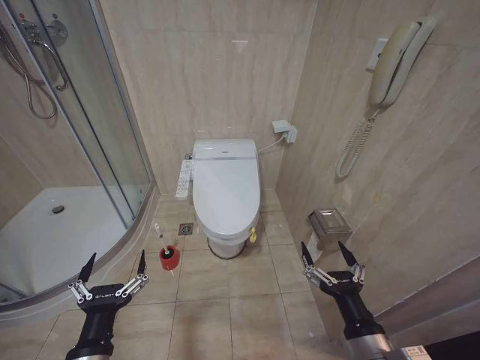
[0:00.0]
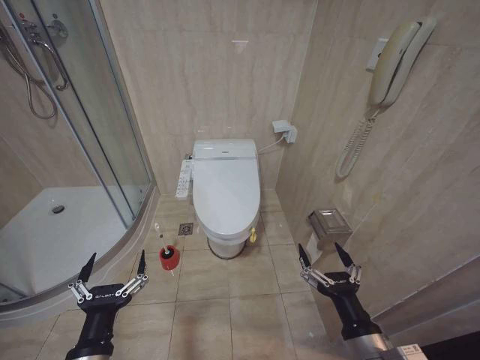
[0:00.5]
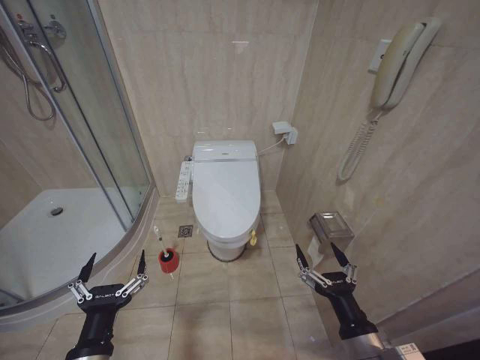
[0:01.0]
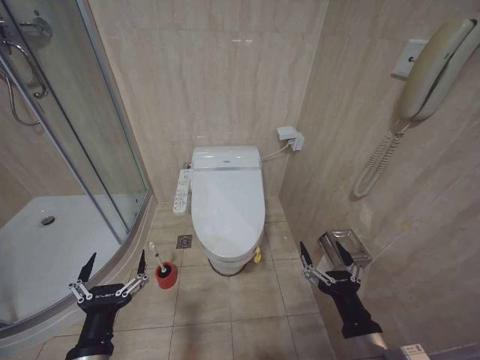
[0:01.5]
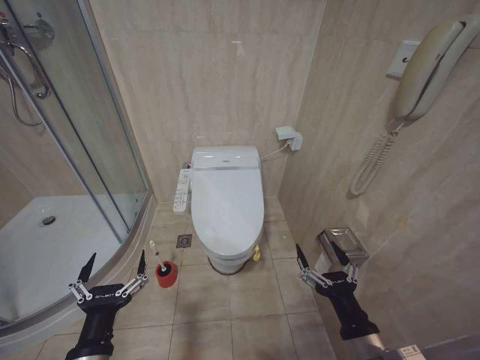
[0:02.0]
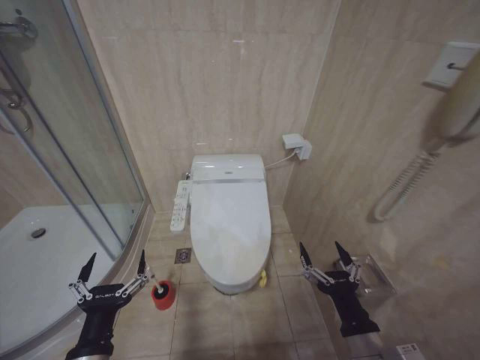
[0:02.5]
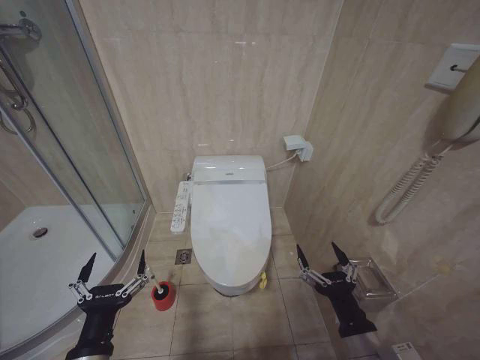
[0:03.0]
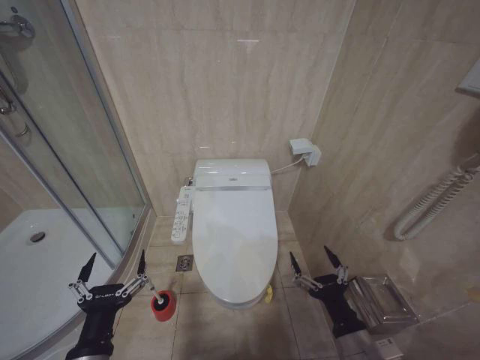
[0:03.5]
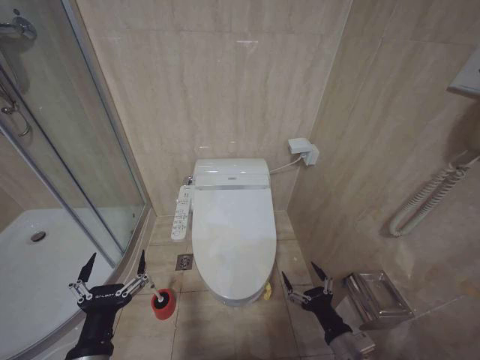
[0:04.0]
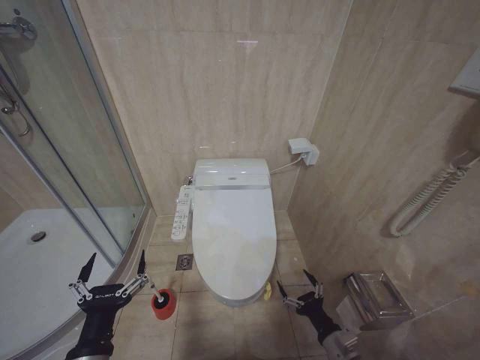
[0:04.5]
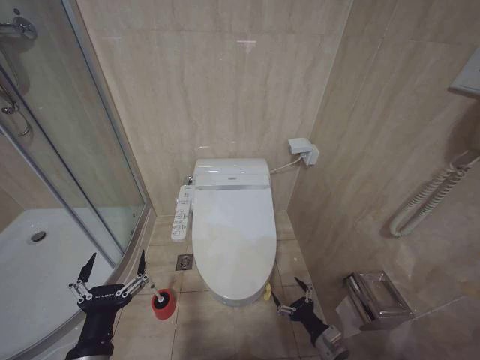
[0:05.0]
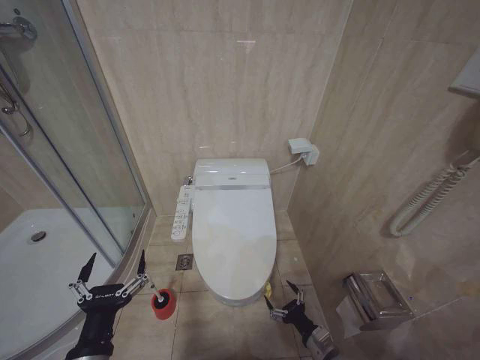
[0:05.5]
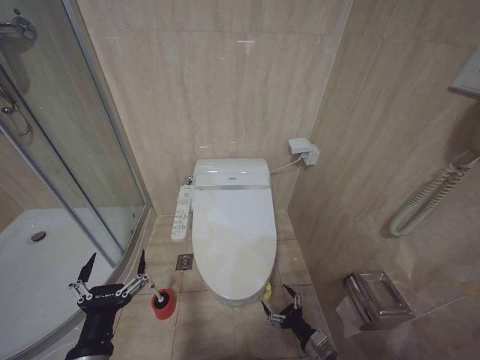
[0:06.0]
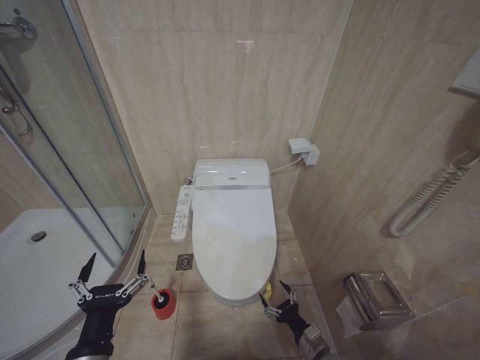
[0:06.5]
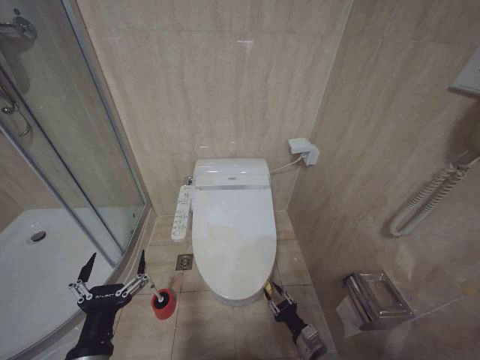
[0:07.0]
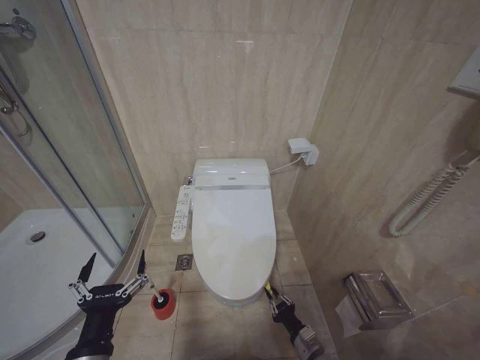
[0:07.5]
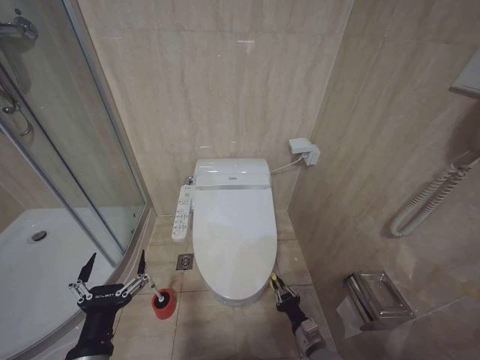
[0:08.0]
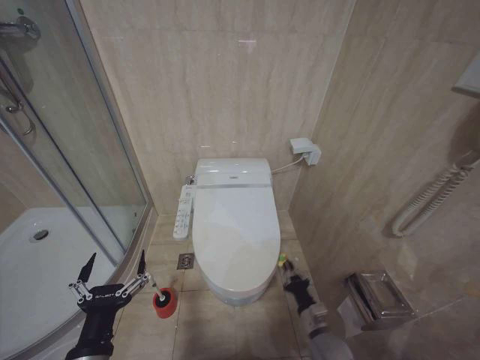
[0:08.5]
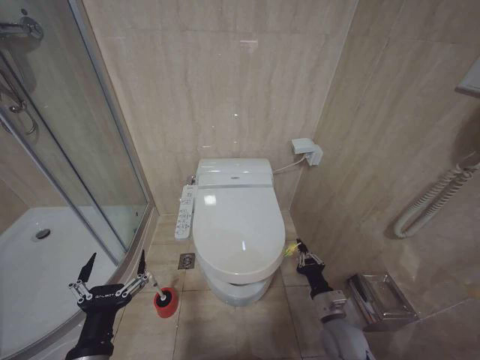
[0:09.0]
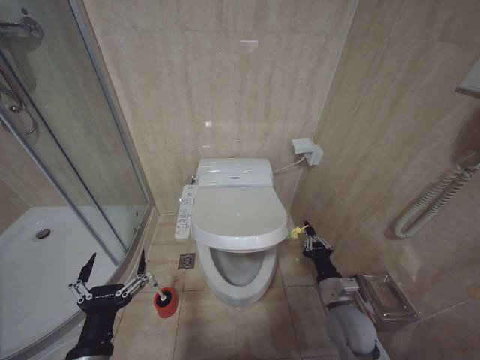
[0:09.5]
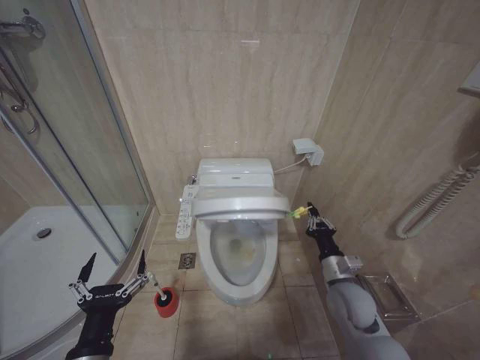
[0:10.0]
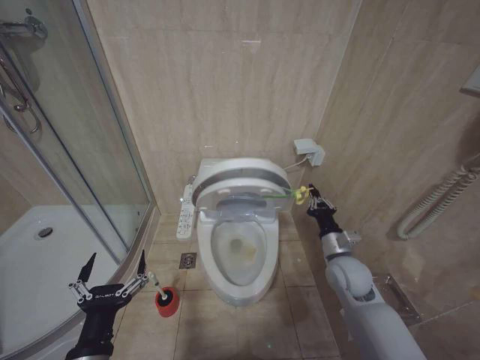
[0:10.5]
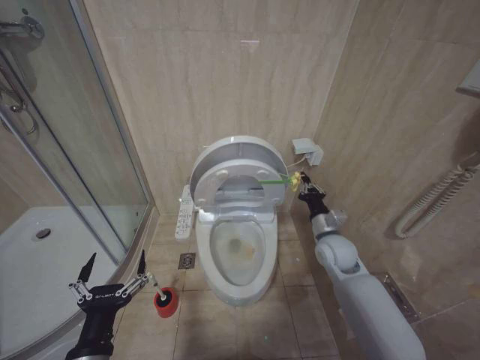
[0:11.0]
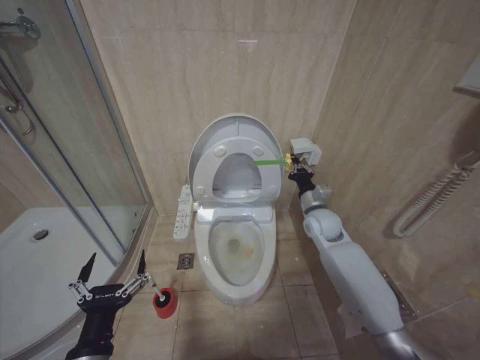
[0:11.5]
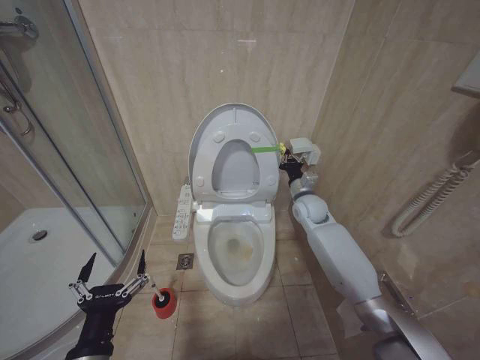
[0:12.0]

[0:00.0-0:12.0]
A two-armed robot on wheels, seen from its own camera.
Task of the whole recording: Open the toilet lid, clean the toilet bowl with a toilet brush, close the toilet lid, and flush.
0:02.0 to 0:04.0: The right gripper heads downward, covering some 10 cm.
0:04.0 to 0:06.0: The right gripper is displaced downward by about 15 cm.
0:06.0 to 0:08.0: The right gripper closes up.
0:08.0 to 0:10.0: The right gripper moves upward and forward, some 20 cm.
0:10.0 to 0:12.0: The right gripper shifts approximately 25 cm forward and upward.

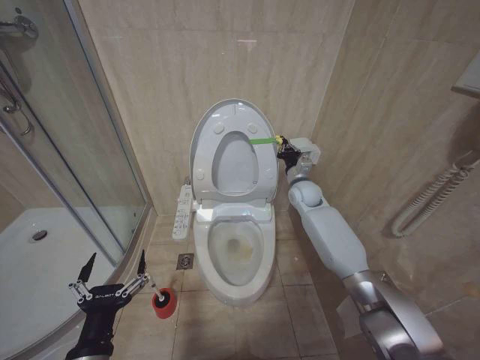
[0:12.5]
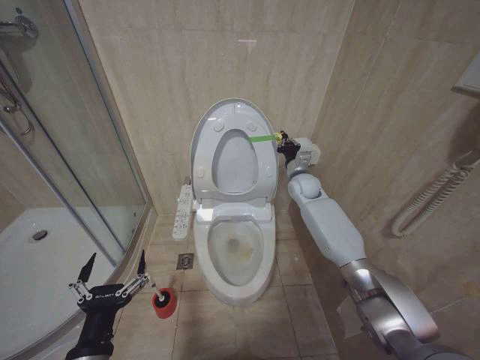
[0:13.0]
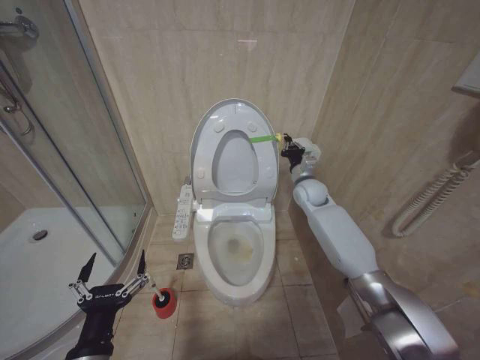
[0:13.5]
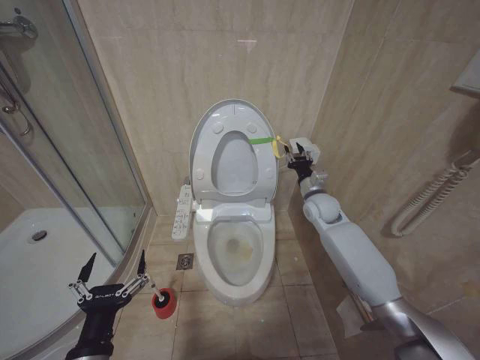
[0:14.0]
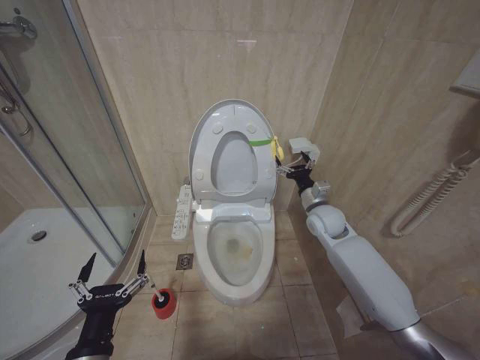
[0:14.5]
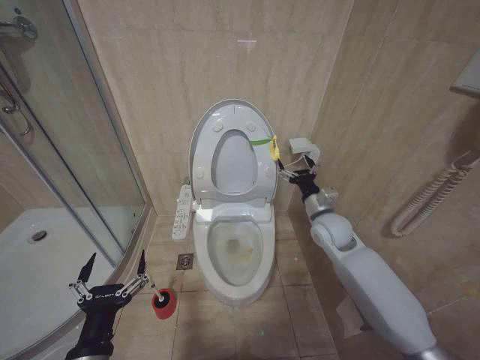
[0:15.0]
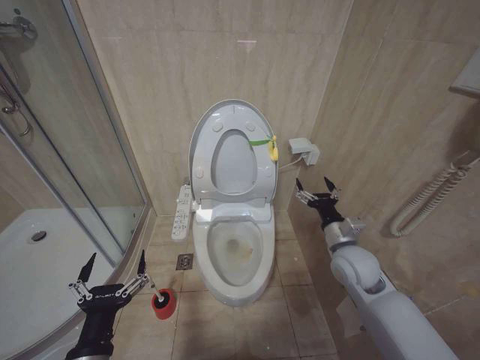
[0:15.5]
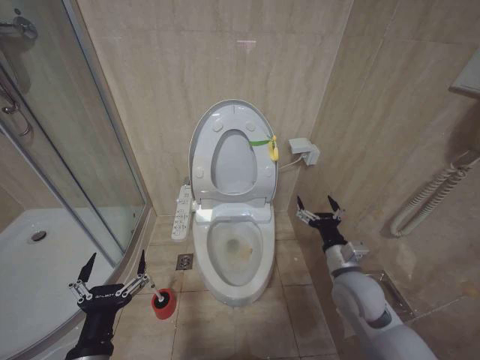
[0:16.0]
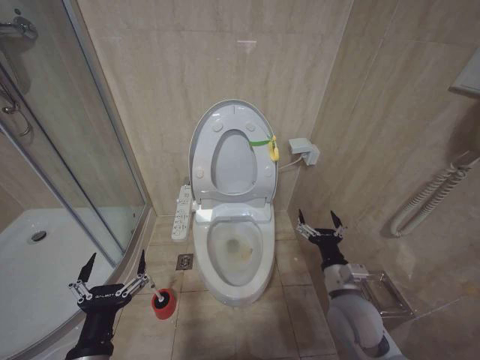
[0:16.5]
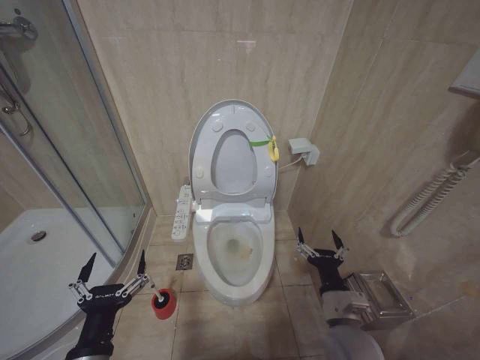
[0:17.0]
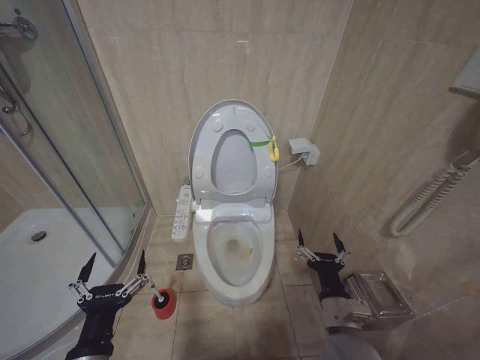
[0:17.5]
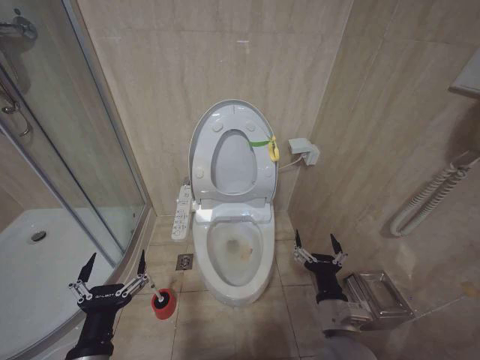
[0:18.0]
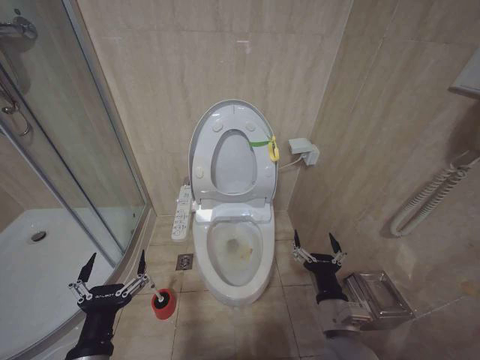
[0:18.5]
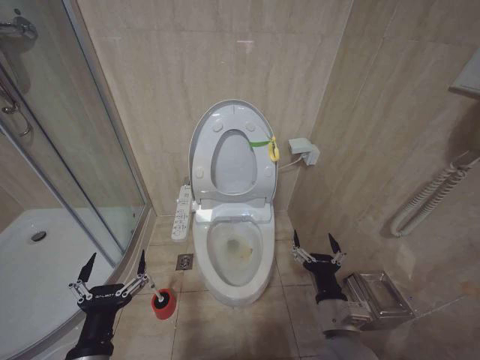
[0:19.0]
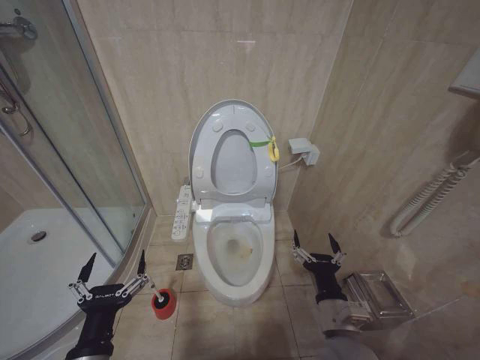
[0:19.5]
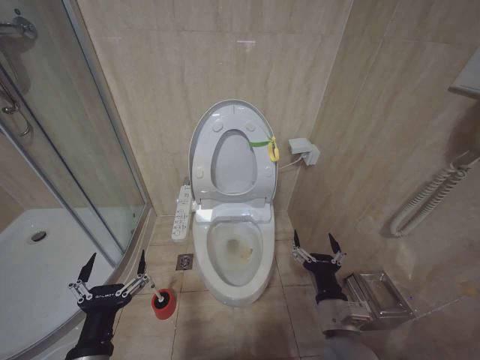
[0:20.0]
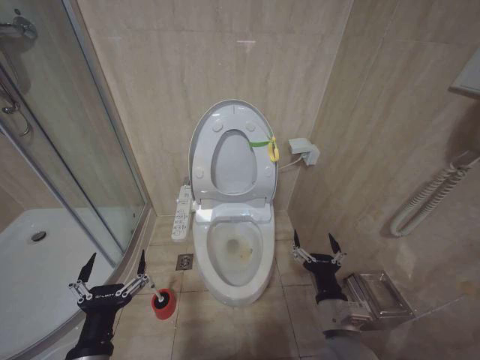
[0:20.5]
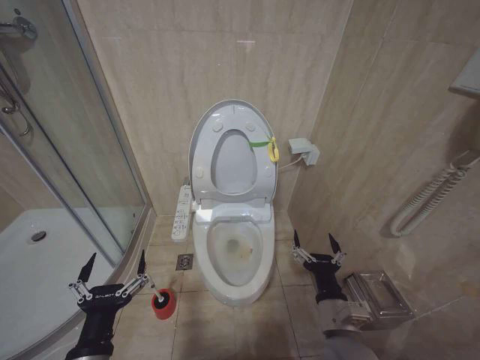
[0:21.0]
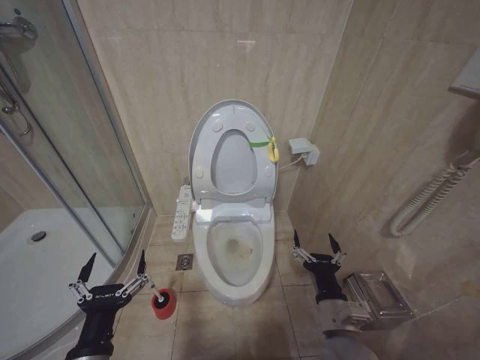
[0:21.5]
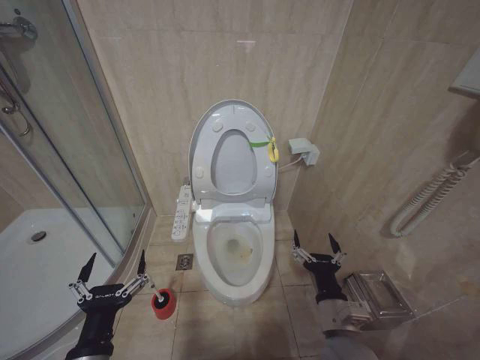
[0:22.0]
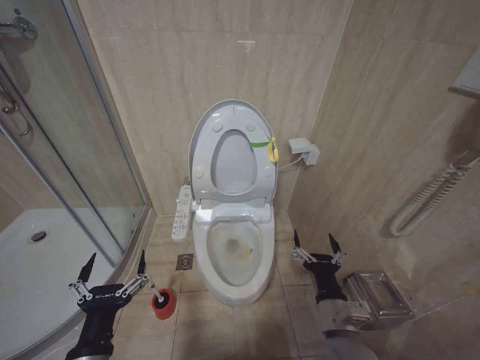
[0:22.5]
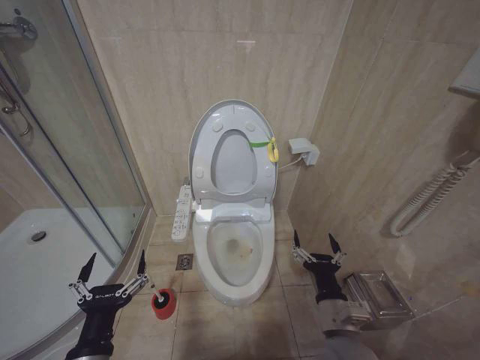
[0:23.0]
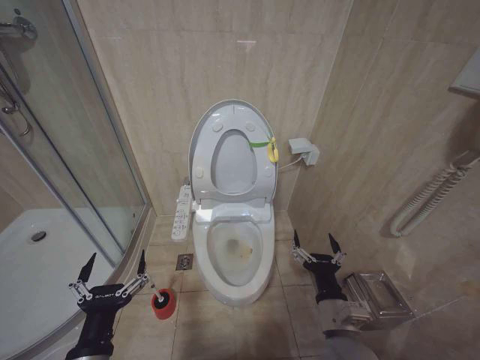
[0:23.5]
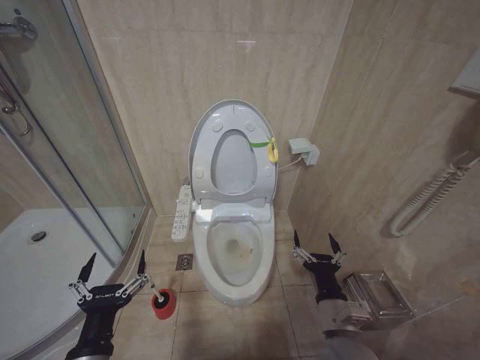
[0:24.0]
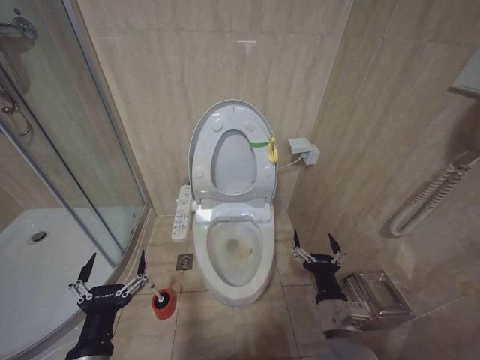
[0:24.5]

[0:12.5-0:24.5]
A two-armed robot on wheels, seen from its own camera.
Task of the whole recording: Open the toilet lid, clean the toilet bowl with a toilet brush, close the toilet lid, and flush.
0:12.5 to 0:14.5: The right gripper travels backward by roughly 10 cm, and opens its fingers.
0:14.5 to 0:16.5: The right gripper goes some 20 cm backward.
0:16.5 to 0:18.5: The right gripper travels backward by roughly 5 cm.
0:18.5 to 0:24.5: The two grippers keep their place.

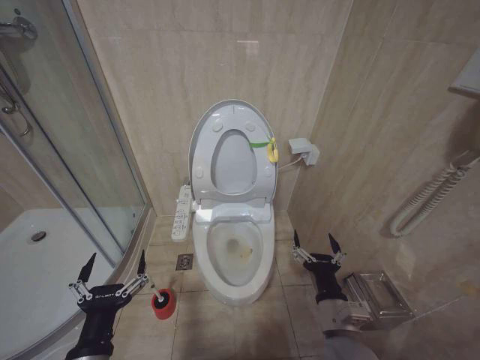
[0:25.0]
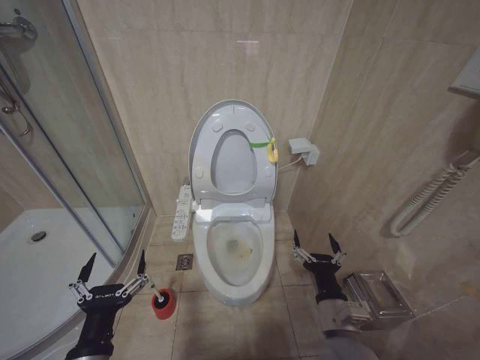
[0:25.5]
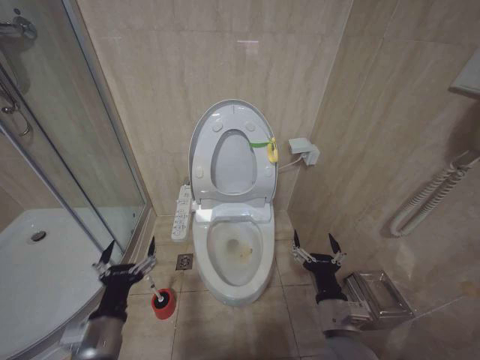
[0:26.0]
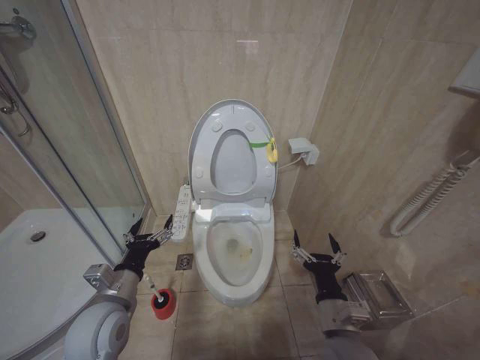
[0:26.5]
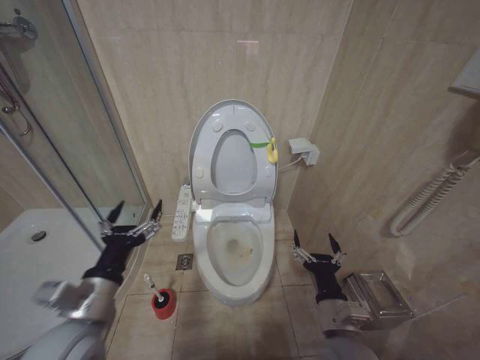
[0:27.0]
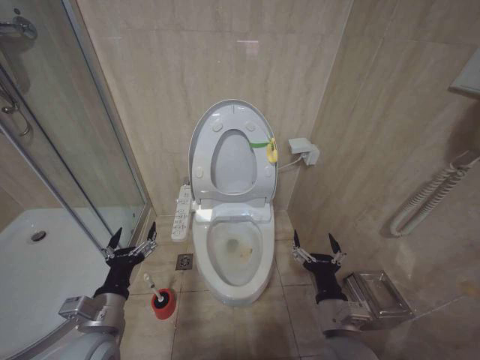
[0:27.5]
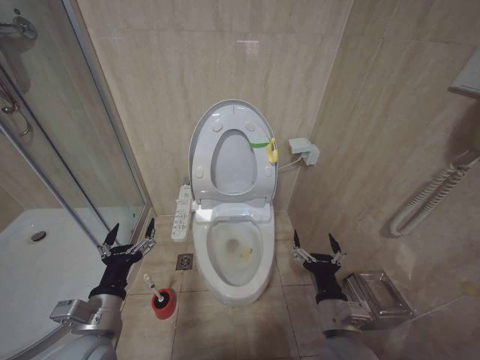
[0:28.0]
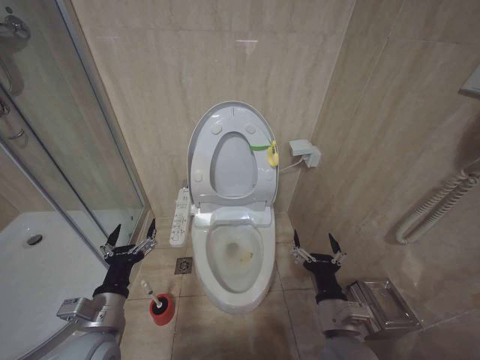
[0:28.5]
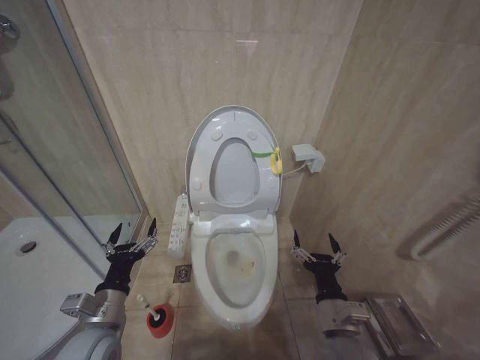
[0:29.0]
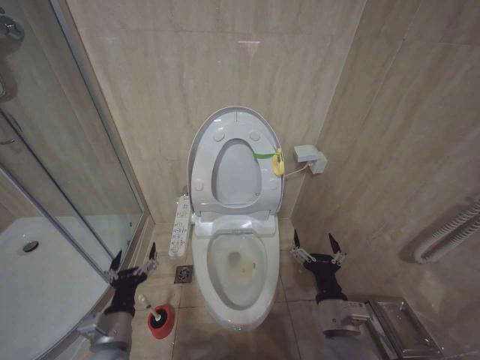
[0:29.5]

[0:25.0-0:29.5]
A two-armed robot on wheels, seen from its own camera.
Task of the whole recording: Open the toilet lid, clean the toilet bowl with a toilet brush, close the toilet lid, and flush.
0:25.0 to 0:27.0: The left gripper moves forward and upward, about 10 cm.
0:27.0 to 0:29.5: The left gripper travels downward by approximately 10 cm.
